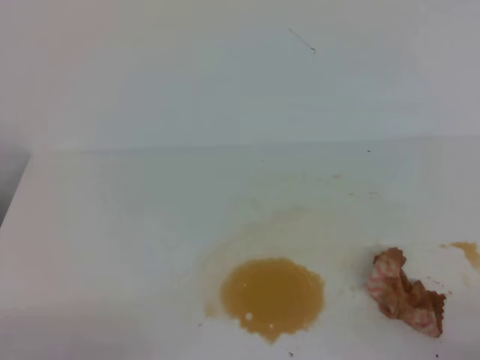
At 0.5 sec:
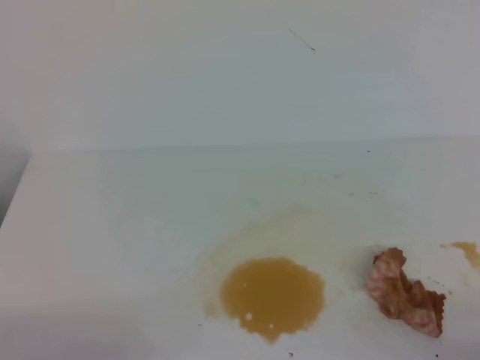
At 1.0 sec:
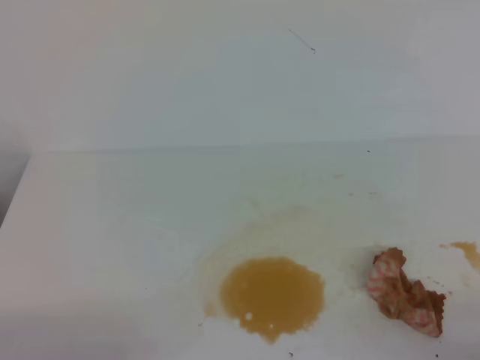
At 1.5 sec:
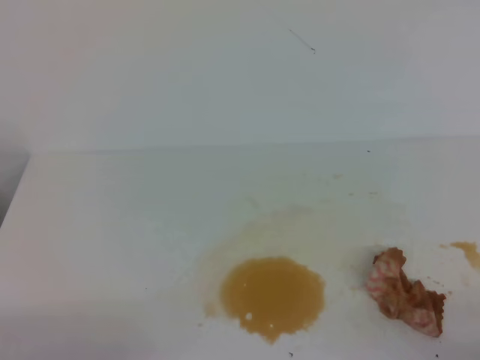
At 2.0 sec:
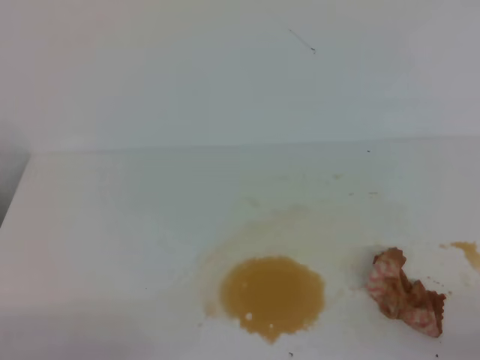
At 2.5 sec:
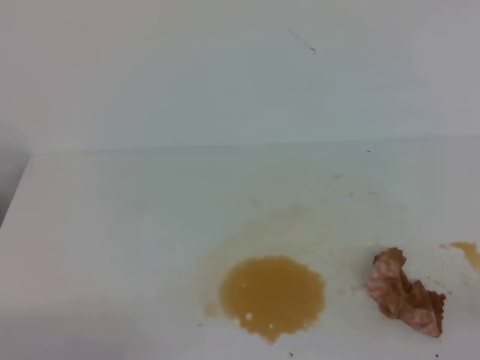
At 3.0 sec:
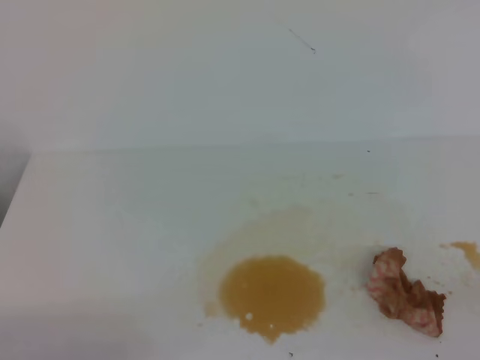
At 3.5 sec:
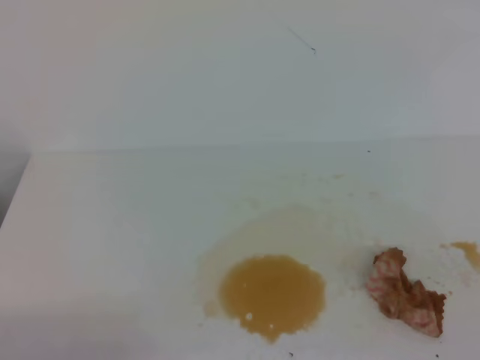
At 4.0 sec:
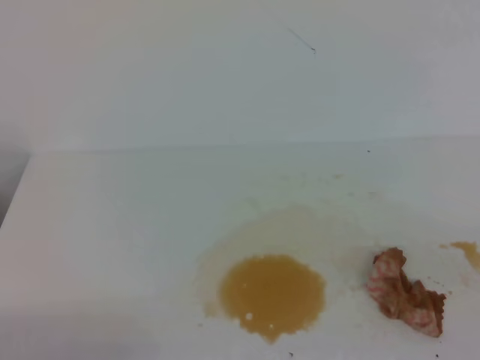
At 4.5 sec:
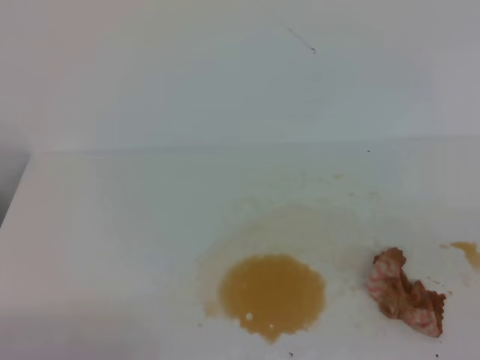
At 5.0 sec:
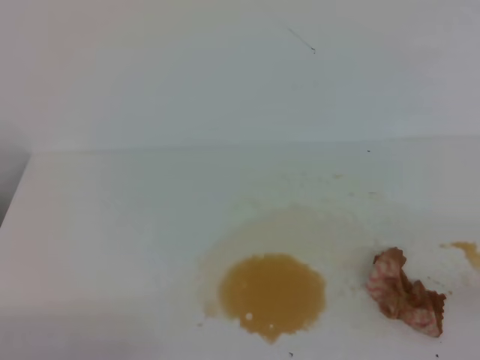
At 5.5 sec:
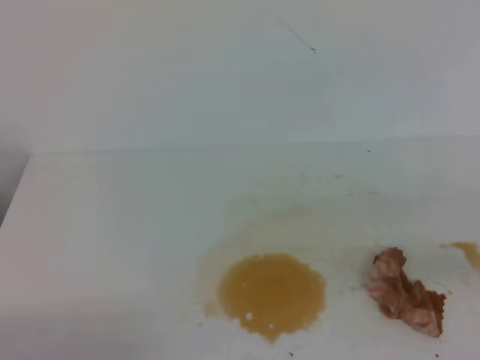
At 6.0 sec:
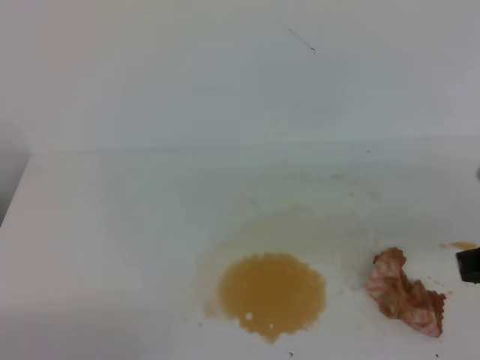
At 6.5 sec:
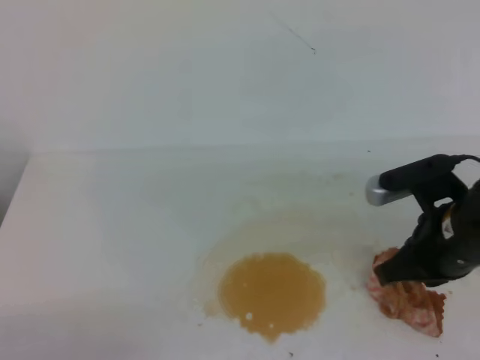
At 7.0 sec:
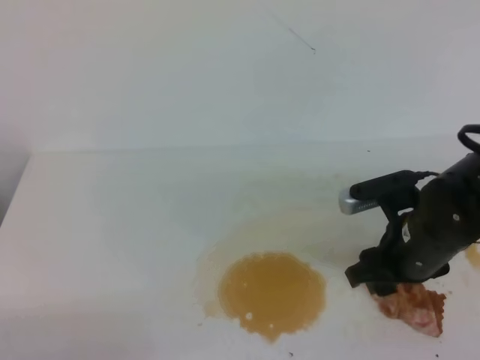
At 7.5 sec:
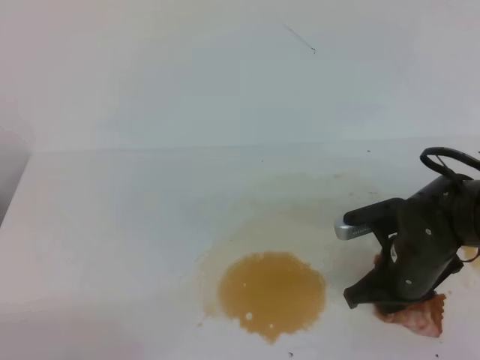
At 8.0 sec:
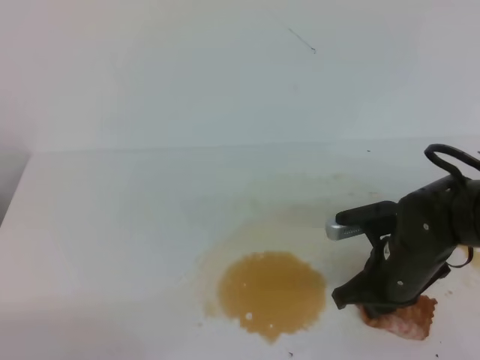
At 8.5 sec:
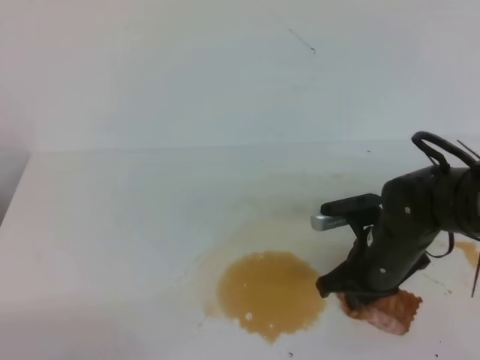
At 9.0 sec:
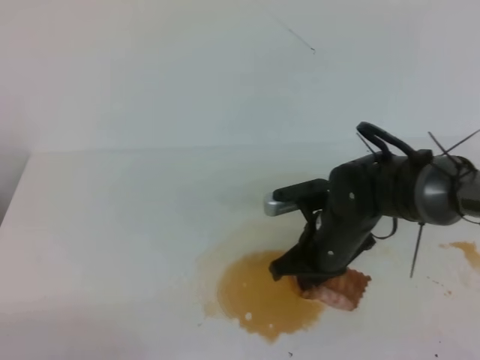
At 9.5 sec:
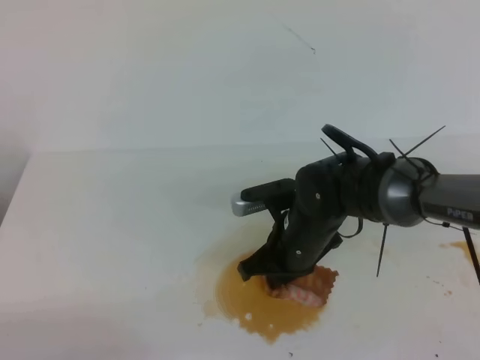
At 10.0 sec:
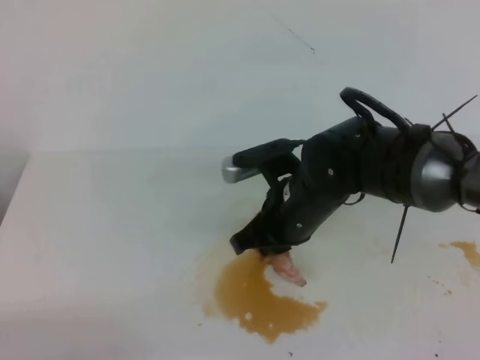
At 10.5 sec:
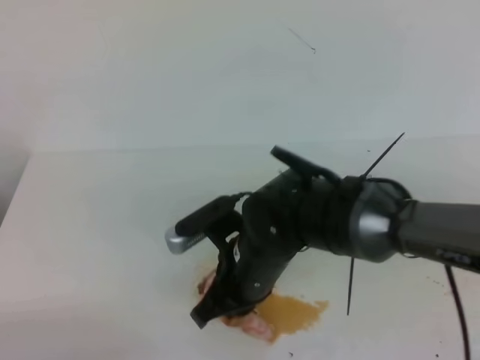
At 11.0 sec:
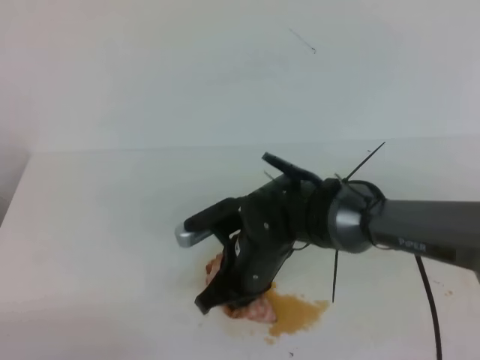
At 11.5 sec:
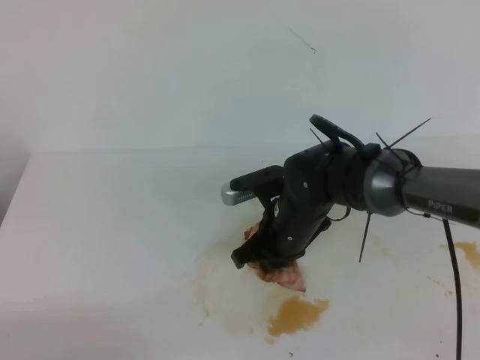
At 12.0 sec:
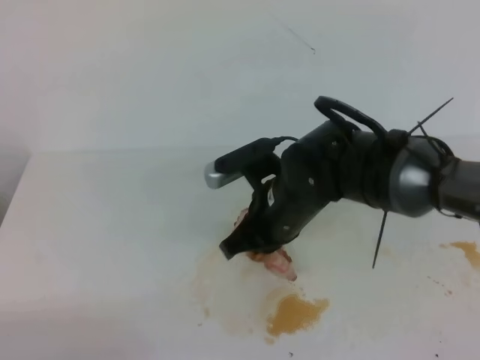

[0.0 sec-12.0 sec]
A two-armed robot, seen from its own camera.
0.0 sec to 2.0 sec: Both grippers stay put.
6.0 sec to 8.0 sec: The right gripper shifts about 15 cm downward, to the left and forward, and opens, then closes again.
8.0 sec to 10.0 sec: The right gripper is displaced to the left and upward by some 15 cm.
10.0 sec to 12.0 sec: The right gripper moves about 5 cm backward and comes back.

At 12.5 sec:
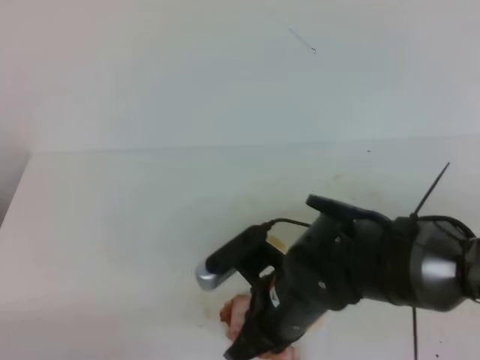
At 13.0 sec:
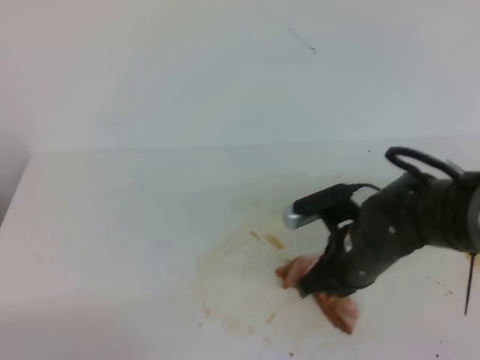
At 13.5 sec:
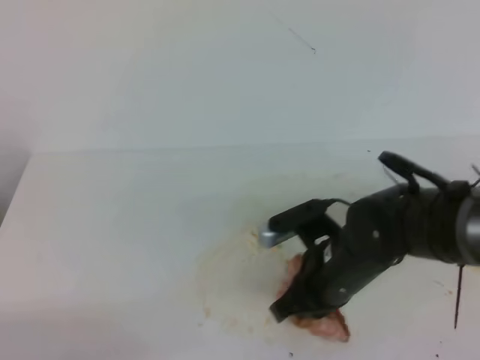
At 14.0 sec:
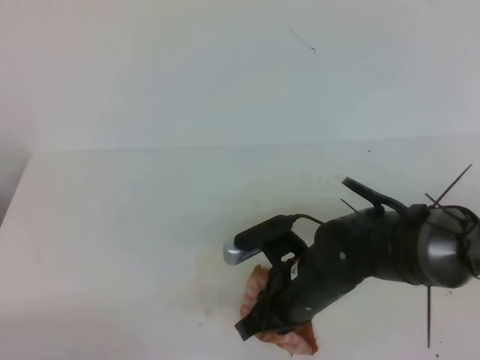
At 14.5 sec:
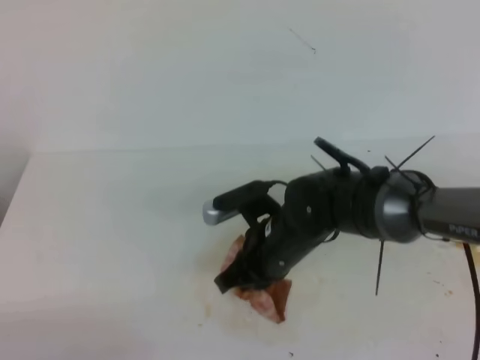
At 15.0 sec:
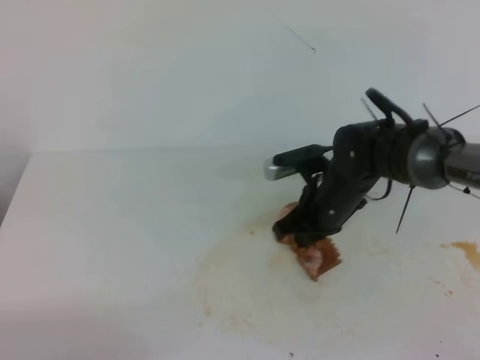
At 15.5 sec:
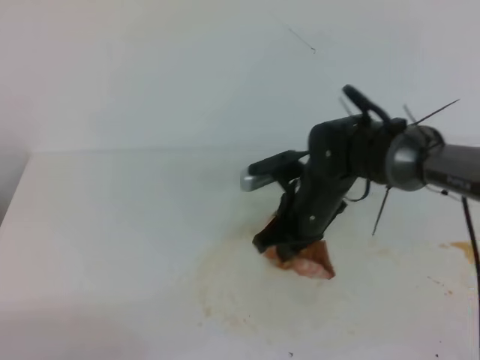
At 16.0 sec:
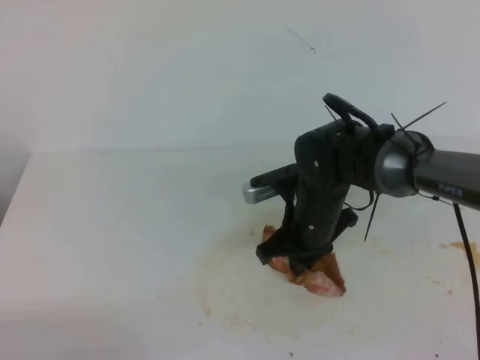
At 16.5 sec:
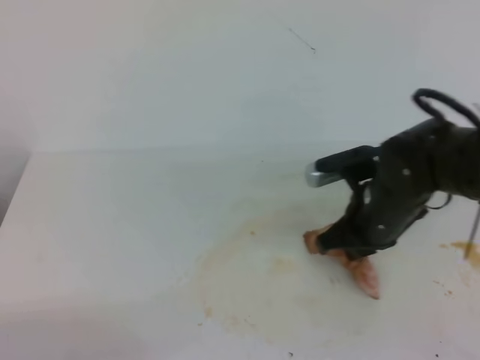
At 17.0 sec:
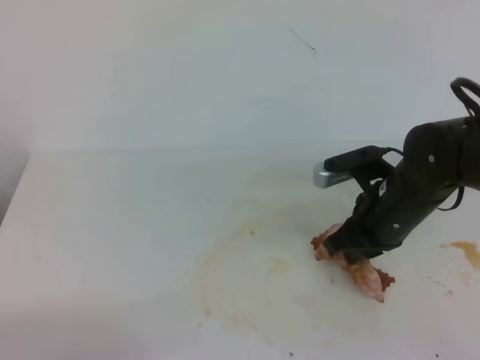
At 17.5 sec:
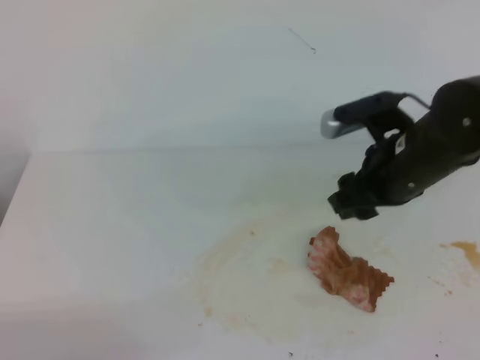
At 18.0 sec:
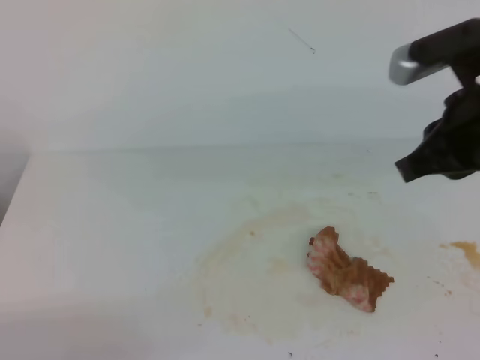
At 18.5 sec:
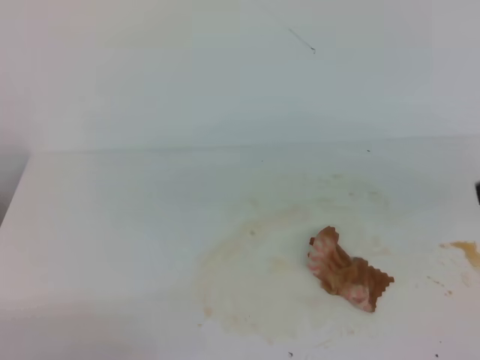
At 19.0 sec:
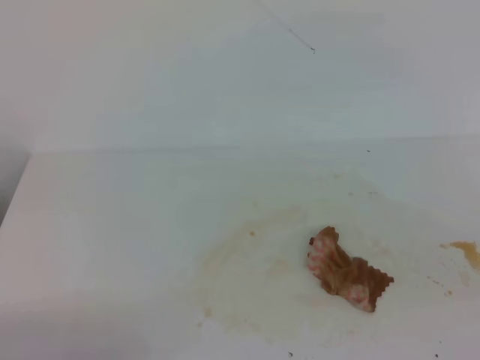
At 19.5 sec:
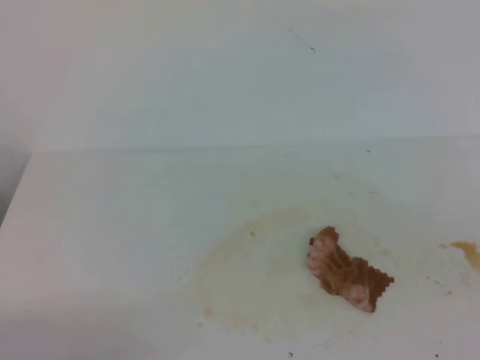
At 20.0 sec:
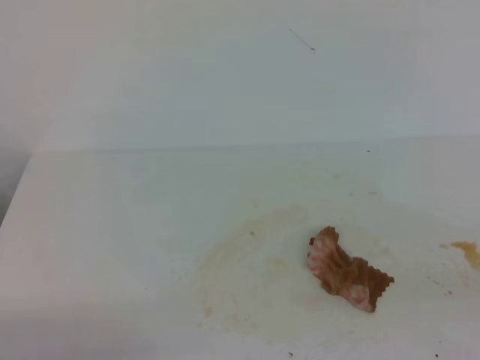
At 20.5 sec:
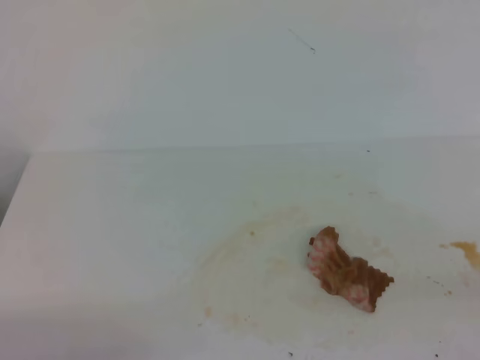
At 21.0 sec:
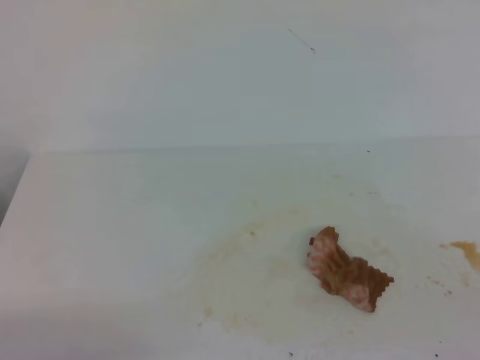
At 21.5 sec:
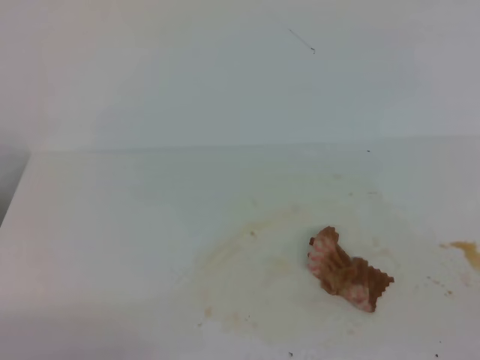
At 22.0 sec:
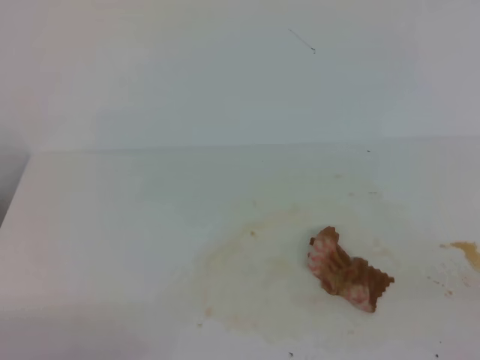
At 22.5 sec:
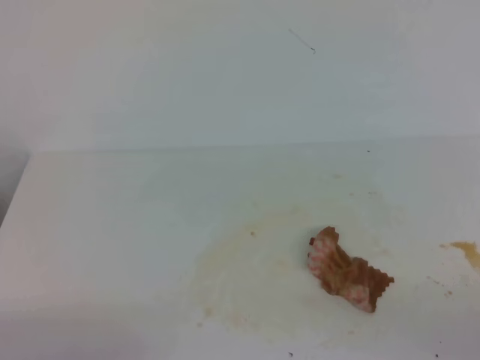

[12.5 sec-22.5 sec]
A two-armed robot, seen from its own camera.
12.5 sec to 14.5 sec: The right gripper moves forward, roughly 5 cm.
14.5 sec to 16.5 sec: The right gripper travels to the right by some 10 cm.
16.5 sec to 18.5 sec: The right gripper shifts about 25 cm upward, backward and to the right, and opens, then closes once more.
18.5 sec to 20.5 sec: The right gripper moves backward and to the right, some 15 cm.

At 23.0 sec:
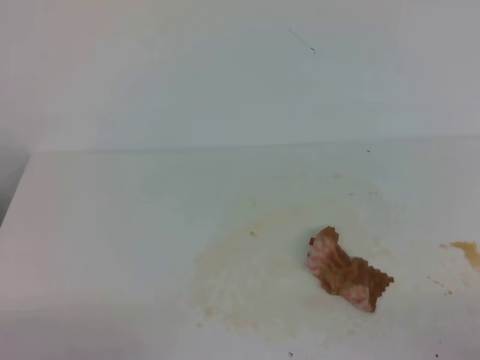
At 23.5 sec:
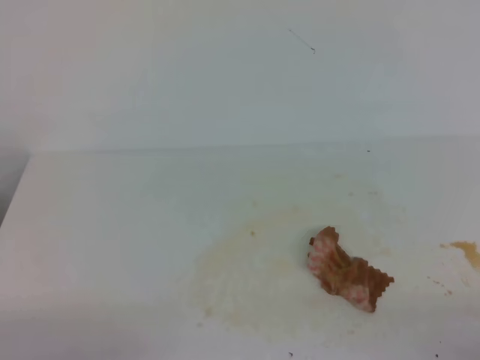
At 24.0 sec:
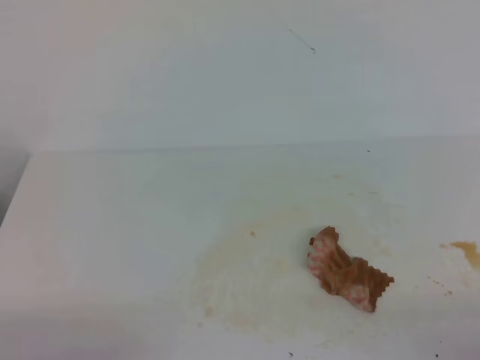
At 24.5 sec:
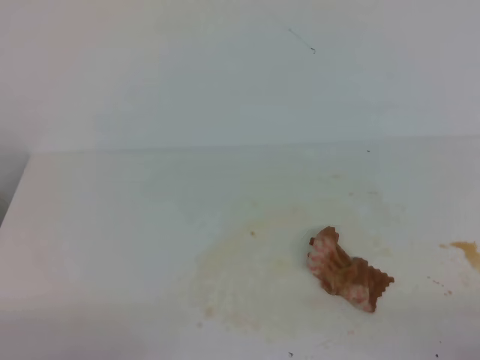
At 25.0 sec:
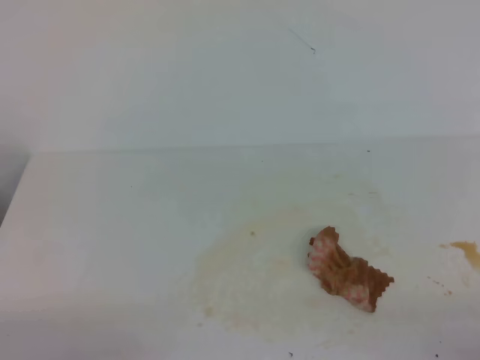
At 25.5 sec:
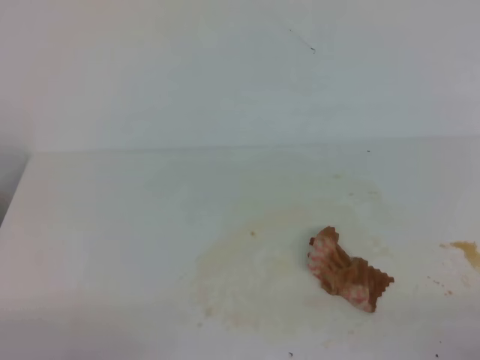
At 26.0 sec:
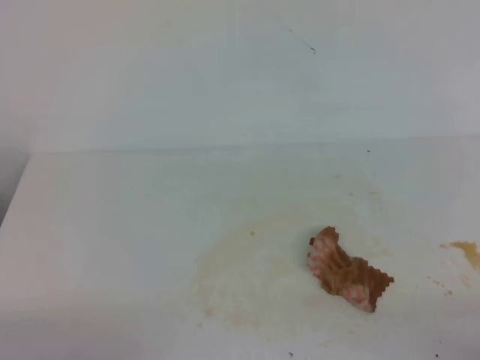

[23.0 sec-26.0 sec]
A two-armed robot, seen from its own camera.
23.0 sec to 26.0 sec: Both grippers stay about where they are.
